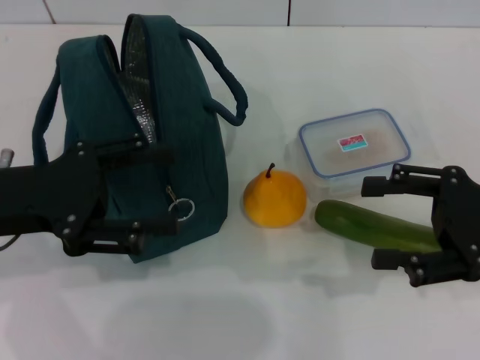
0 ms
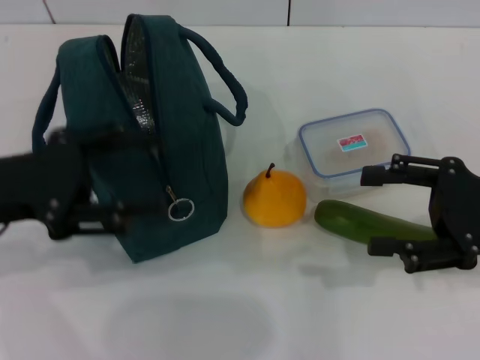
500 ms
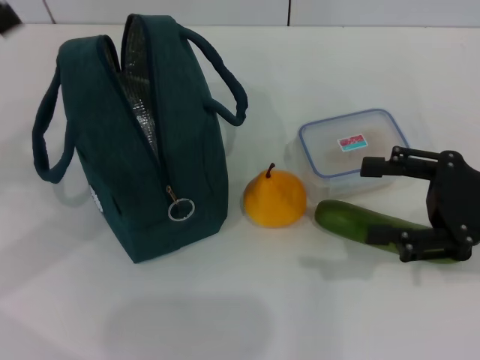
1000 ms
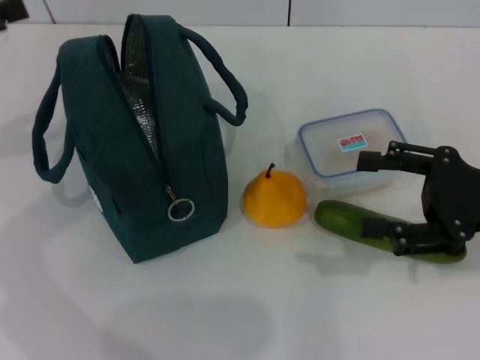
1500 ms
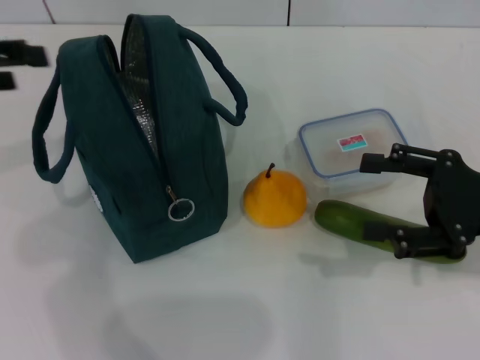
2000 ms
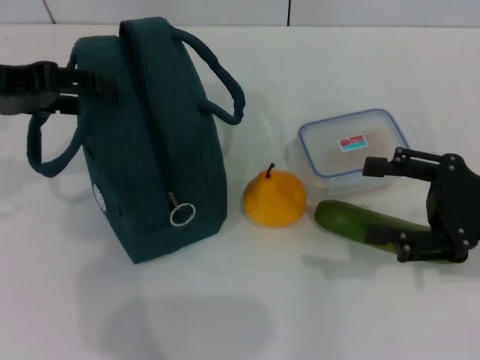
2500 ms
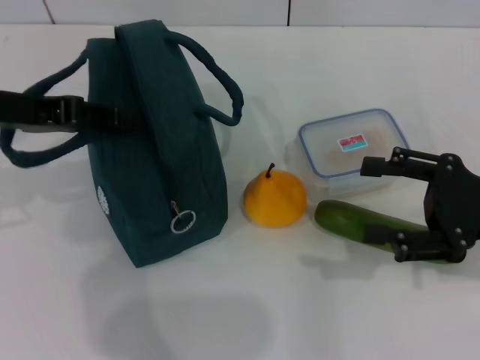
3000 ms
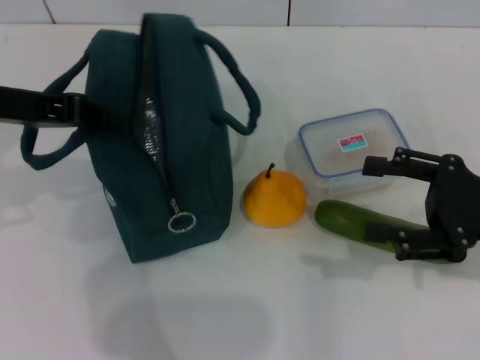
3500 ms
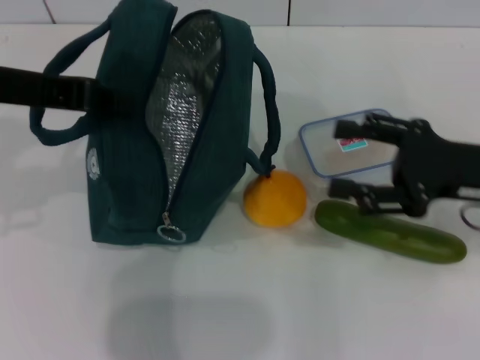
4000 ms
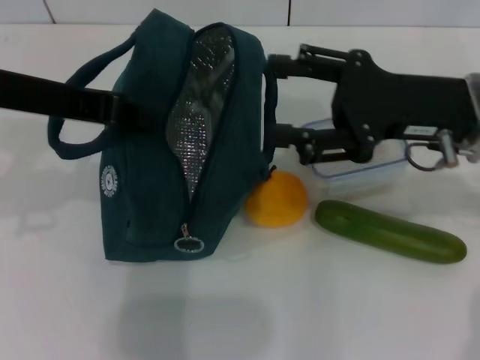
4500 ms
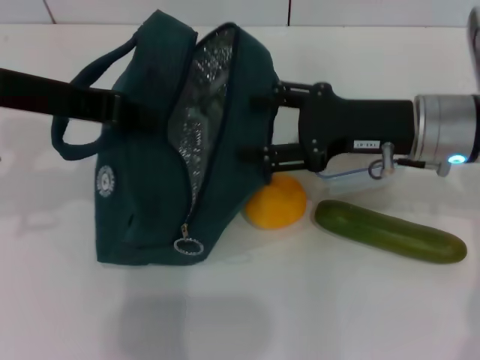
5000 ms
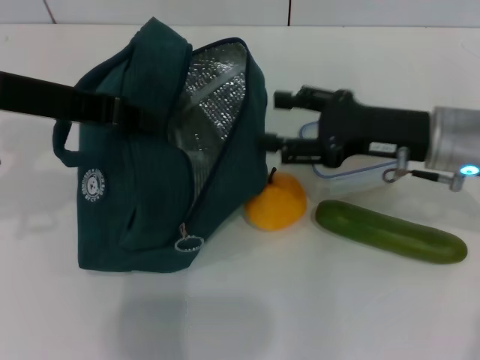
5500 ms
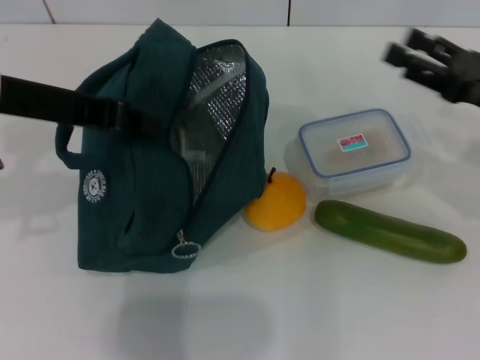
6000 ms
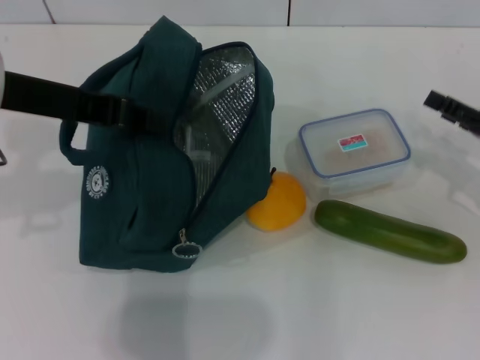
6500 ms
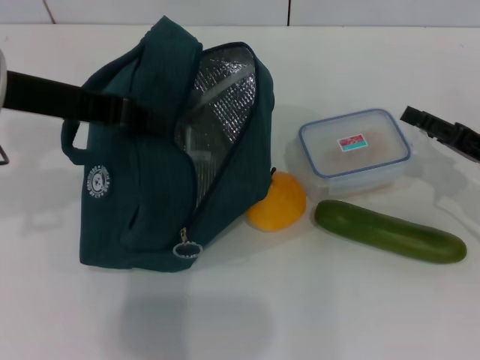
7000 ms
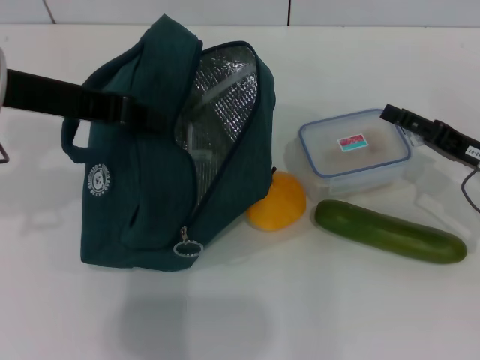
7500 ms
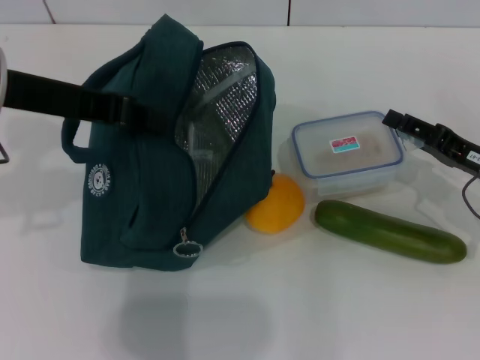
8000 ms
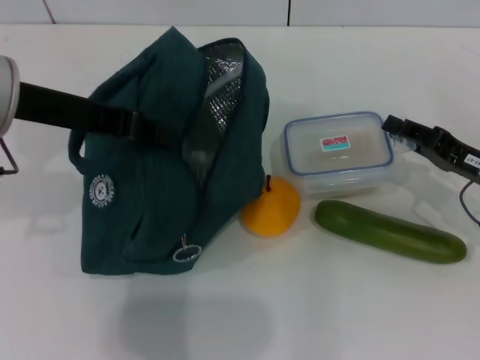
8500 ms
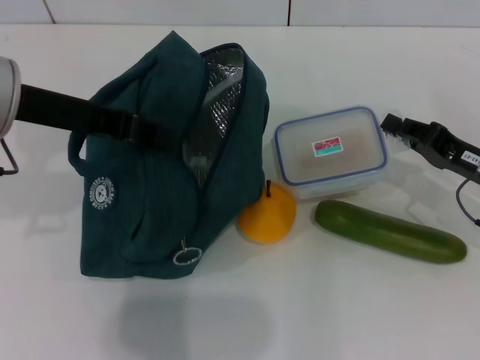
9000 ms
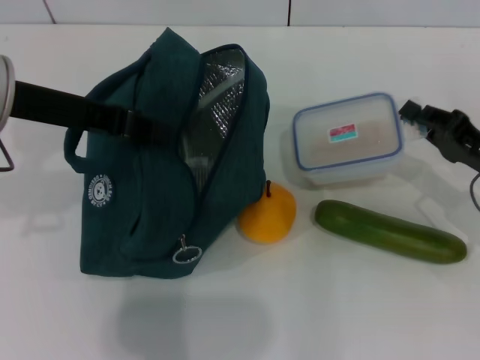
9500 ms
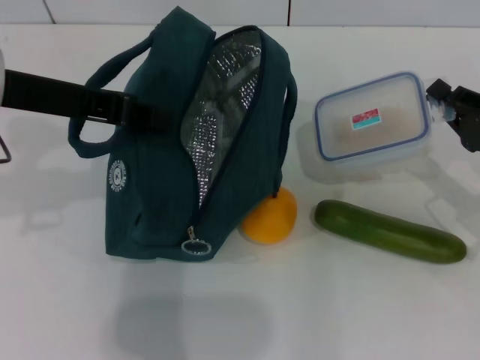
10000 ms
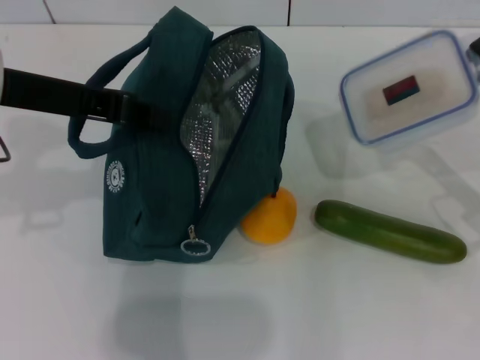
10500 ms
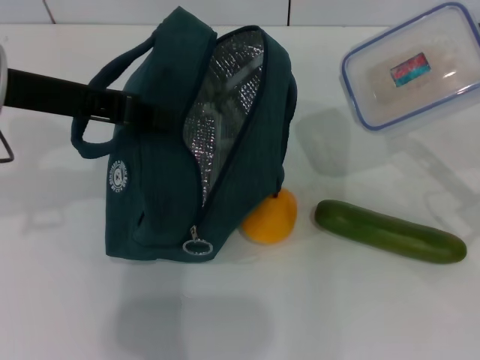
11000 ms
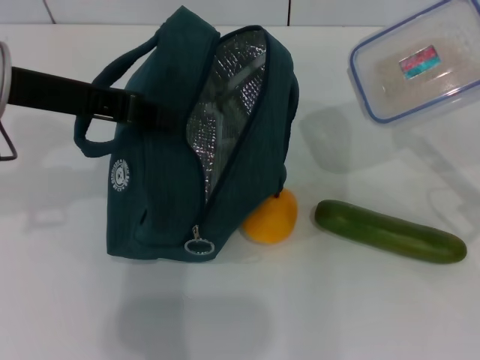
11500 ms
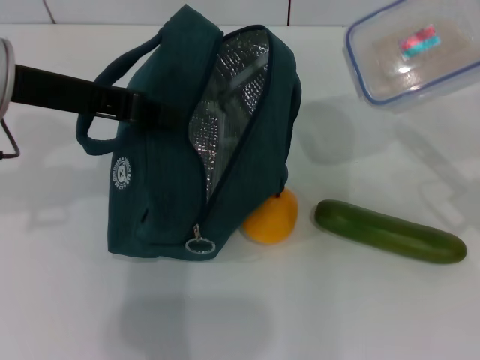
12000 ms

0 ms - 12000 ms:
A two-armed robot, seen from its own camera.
Step, 0 ms - 3000 ms: Hold the lunch bag with your left hand.
Step, 3500 ms - 9000 ms: Pick up the lunch box with your right hand.
0 ms - 2000 ms: The left gripper goes about 10 cm upward, to the left and forward.
2000 ms - 4000 ms: The left gripper is displaced to the right by about 10 cm, and closes its fingers.
4000 ms - 6000 ms: The right gripper goes to the left and returns, approximately 10 cm each way.
6000 ms - 8000 ms: The right gripper is displaced downward by approximately 5 cm.
8000 ms - 10000 ms: The right gripper closes up.

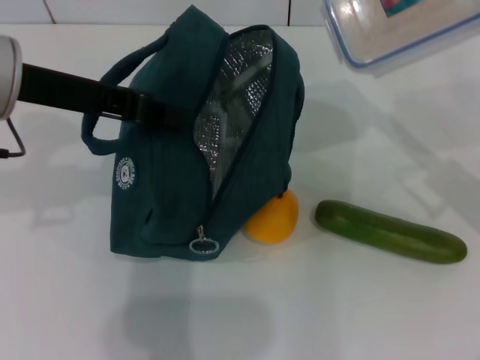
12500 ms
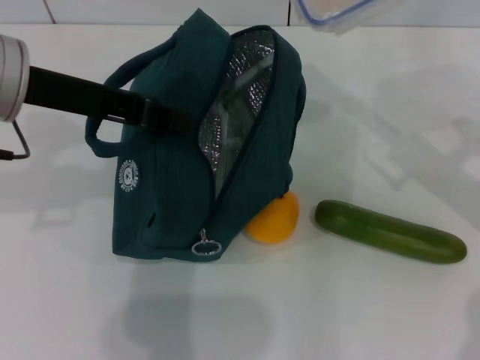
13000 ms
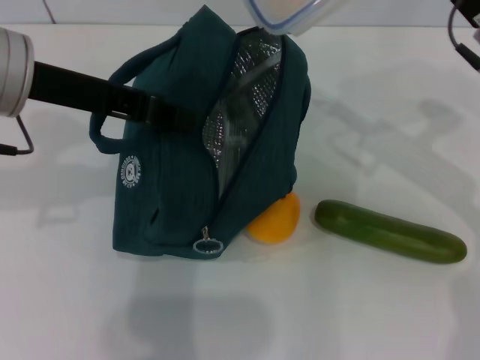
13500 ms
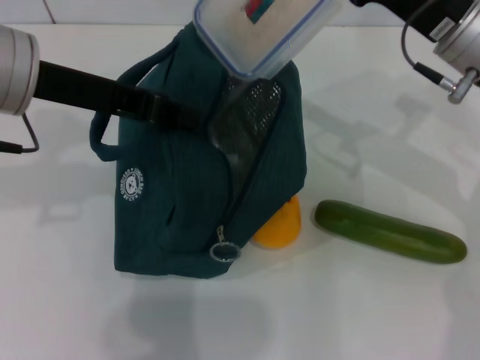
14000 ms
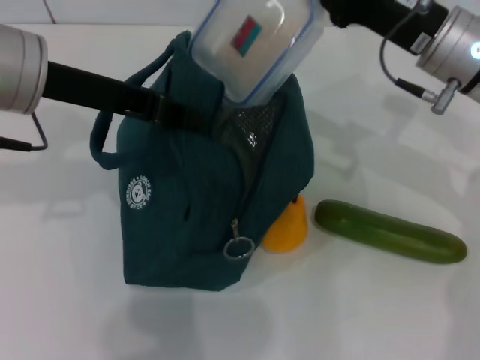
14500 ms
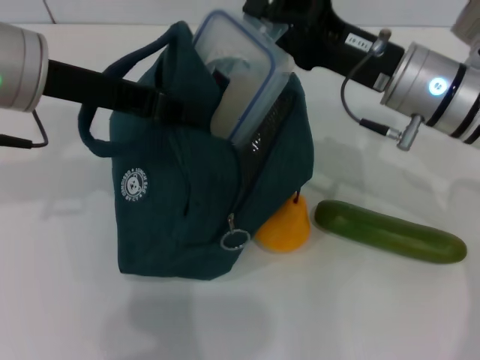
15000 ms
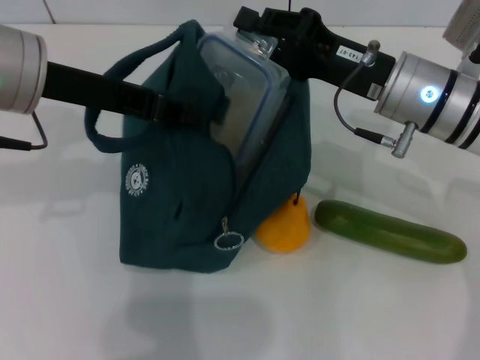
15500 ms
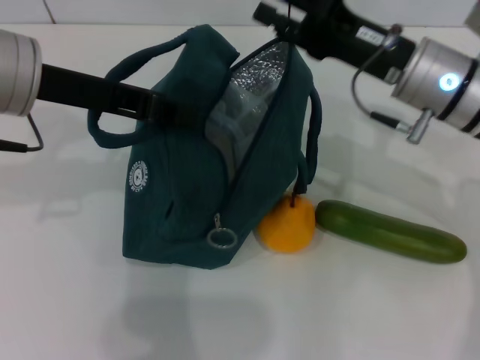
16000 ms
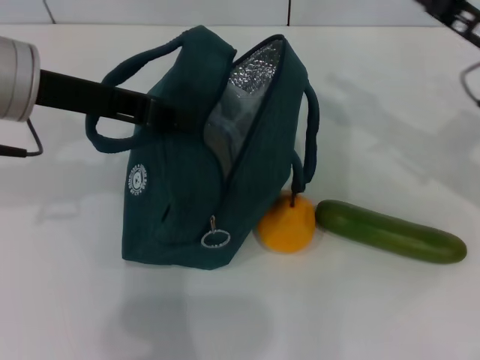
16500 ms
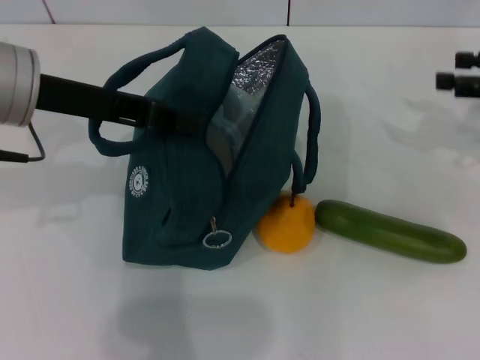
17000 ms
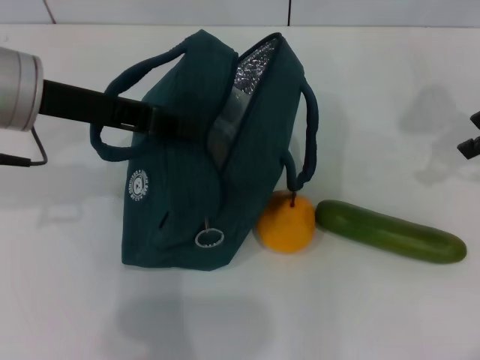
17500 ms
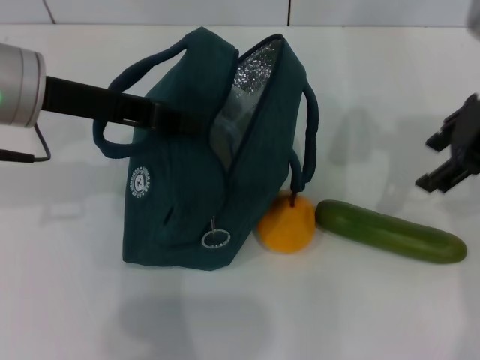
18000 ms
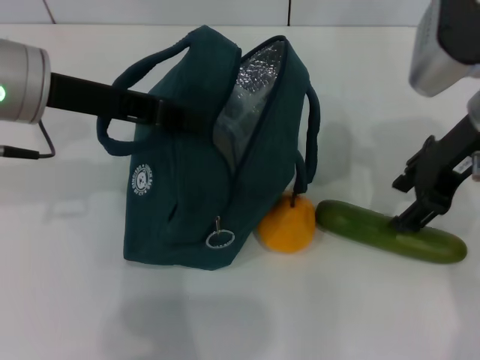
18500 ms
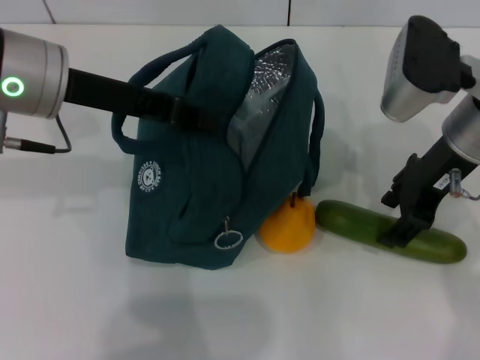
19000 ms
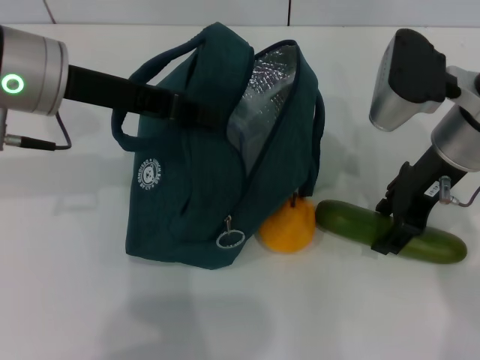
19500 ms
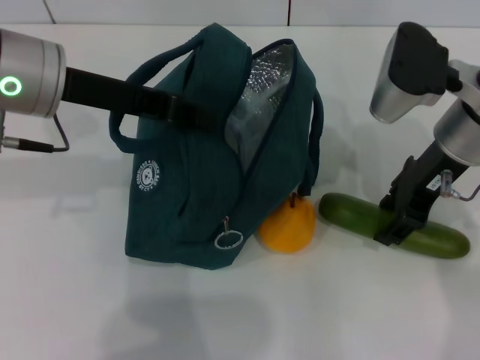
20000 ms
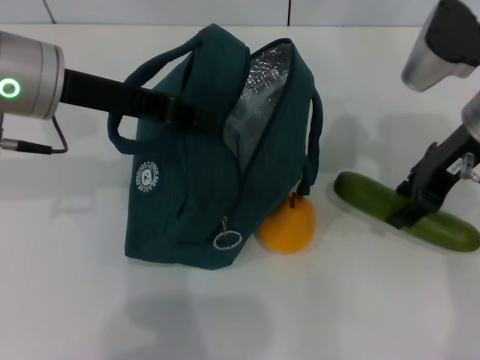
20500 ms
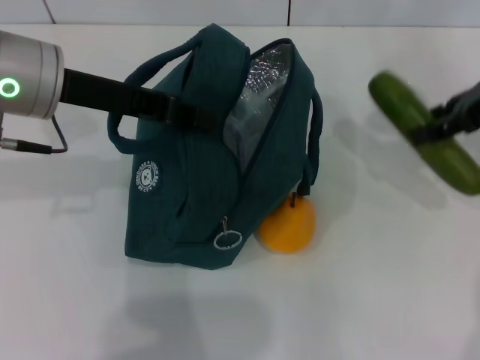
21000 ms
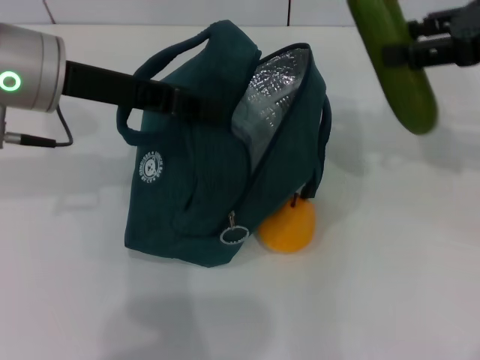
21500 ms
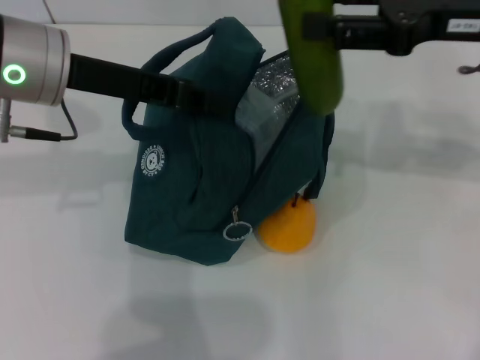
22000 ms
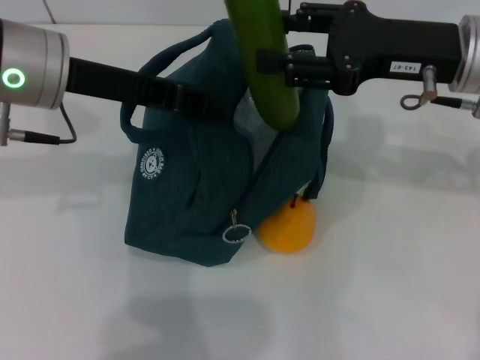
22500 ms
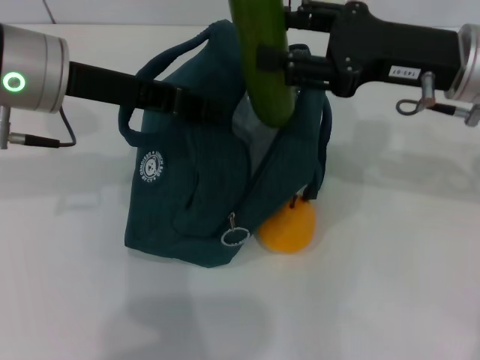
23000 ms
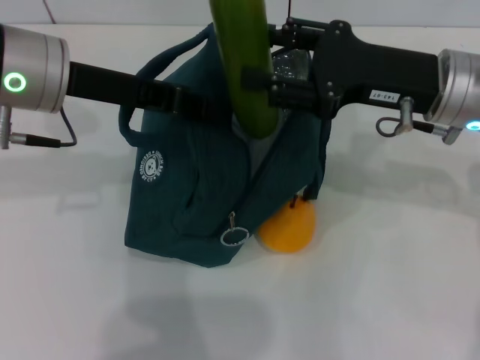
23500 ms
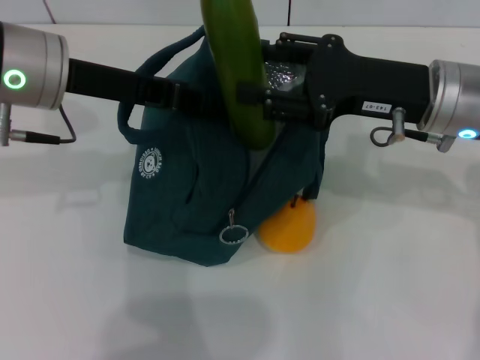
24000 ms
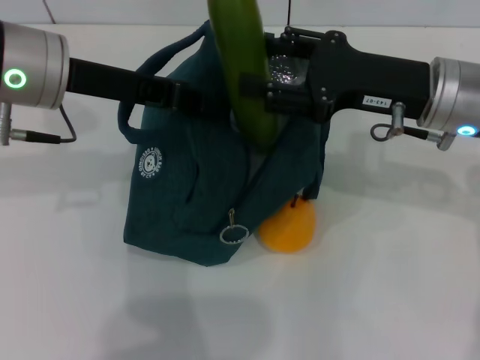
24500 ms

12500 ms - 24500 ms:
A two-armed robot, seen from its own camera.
Step, 12500 ms - 16000 ms: Place the lunch box into the lunch bag with your right hand.
Step, 16500 ms - 19500 ms: Pick up the cucumber with your right hand.
12500 ms - 14500 ms: The right gripper is displaced to the left and forward by about 10 cm.
14500 ms - 16500 ms: The right gripper goes approximately 10 cm to the right, and opens its fingers.
16500 ms - 18500 ms: The right gripper heads to the left and upward, covering about 10 cm.
18500 ms - 20500 ms: The grippers stay close to where they were, moving slightly.
20500 ms - 22500 ms: The right gripper travels upward and back again, roughly 10 cm each way.
22500 ms - 24500 ms: The grippers make only small movements.

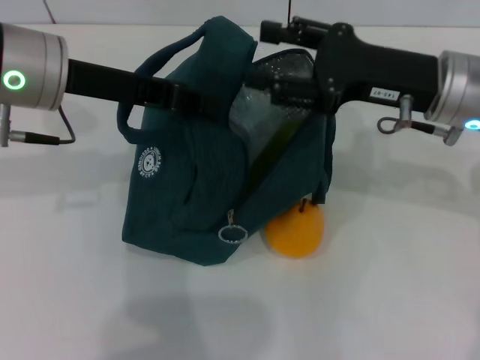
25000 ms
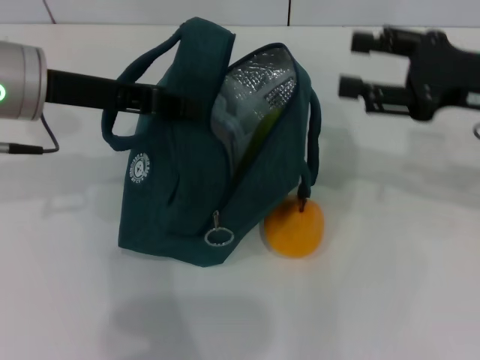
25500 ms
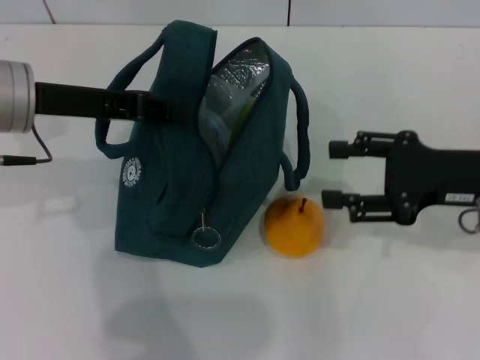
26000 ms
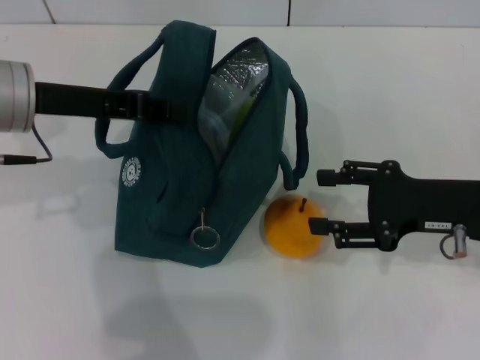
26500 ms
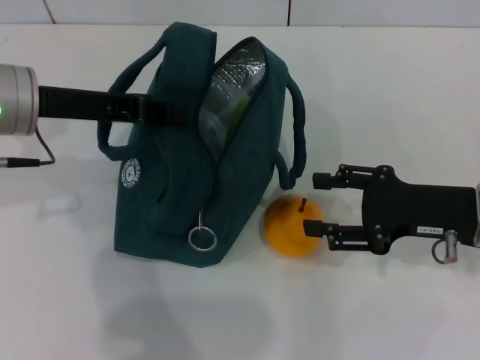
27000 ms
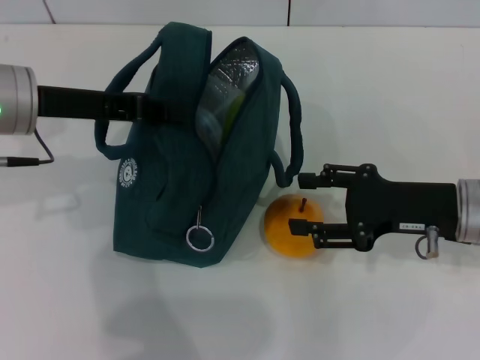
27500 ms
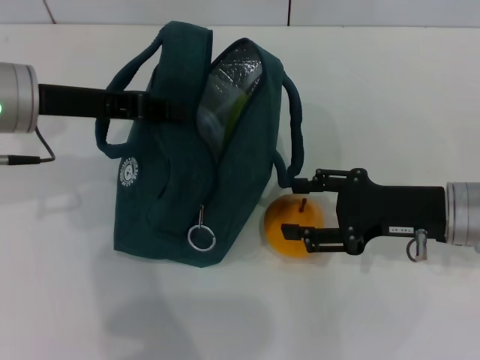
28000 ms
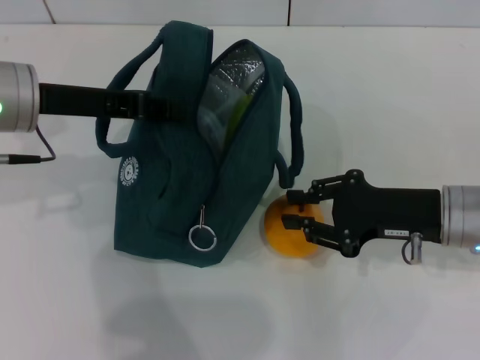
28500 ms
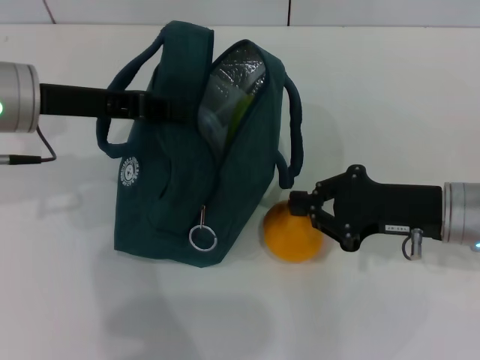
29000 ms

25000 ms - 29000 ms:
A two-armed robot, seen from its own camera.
Step, 25000 ms - 29000 ms: Grab the pear with your right hand.
25000 ms - 27000 ms: The left gripper shifts by roughly 5 cm. The right gripper is displaced downward, backward and to the right by about 10 cm.
27000 ms - 29000 ms: The right gripper closes.
